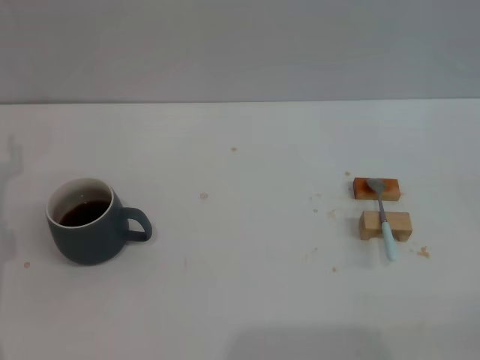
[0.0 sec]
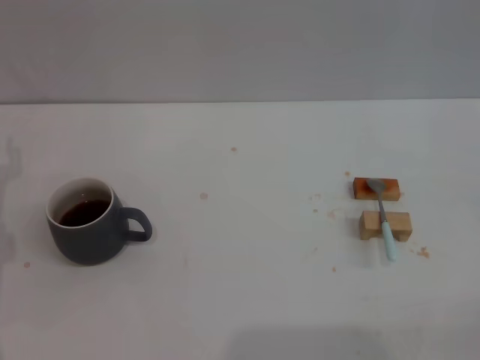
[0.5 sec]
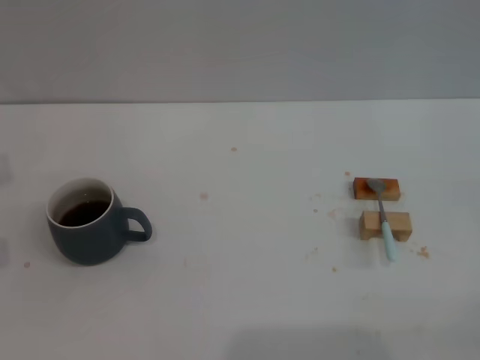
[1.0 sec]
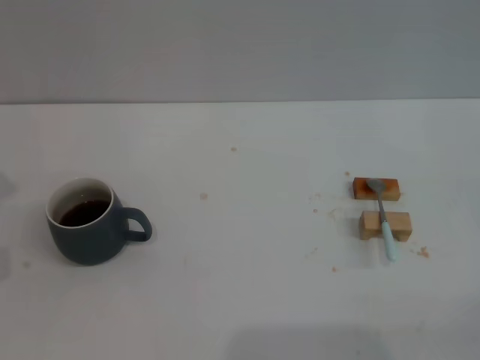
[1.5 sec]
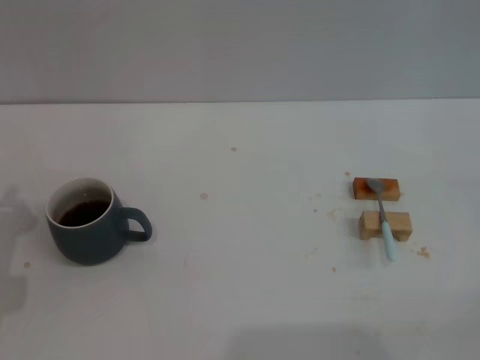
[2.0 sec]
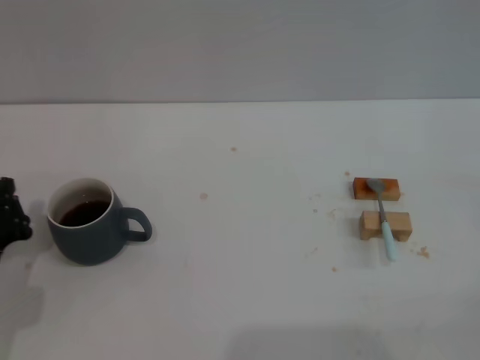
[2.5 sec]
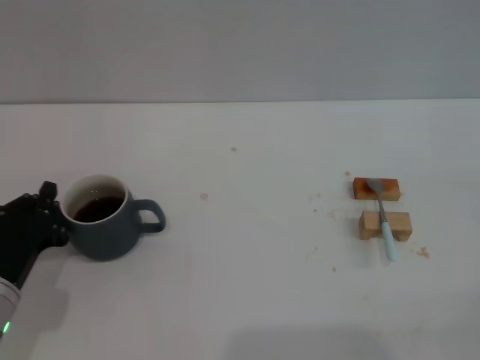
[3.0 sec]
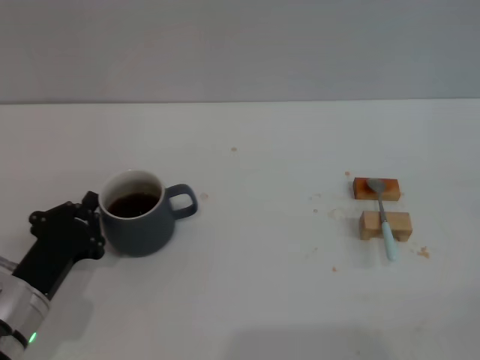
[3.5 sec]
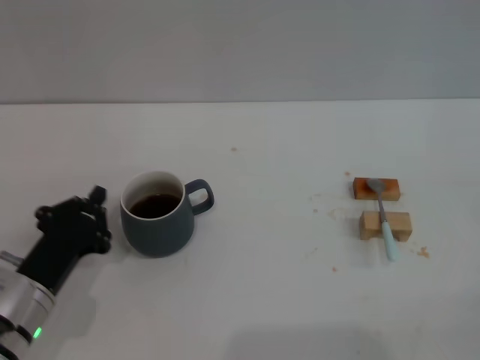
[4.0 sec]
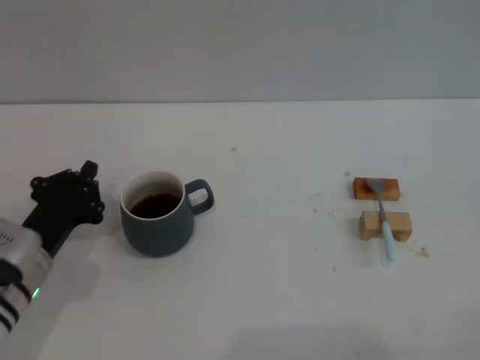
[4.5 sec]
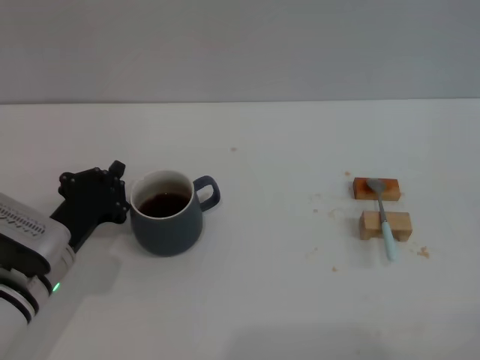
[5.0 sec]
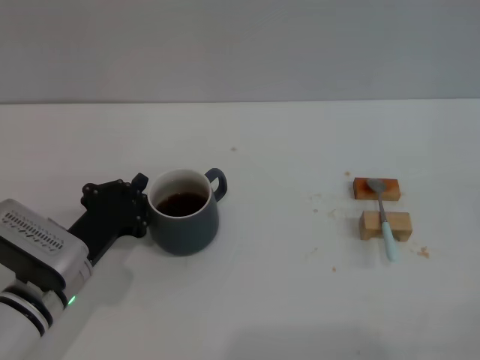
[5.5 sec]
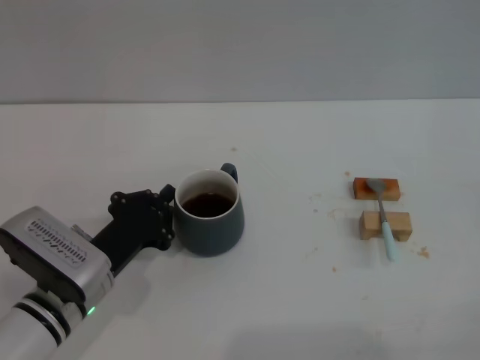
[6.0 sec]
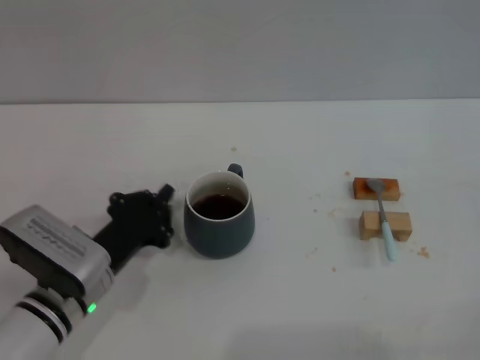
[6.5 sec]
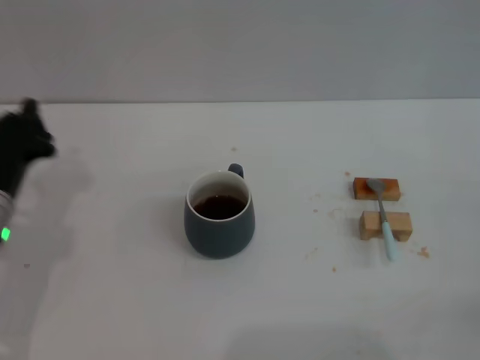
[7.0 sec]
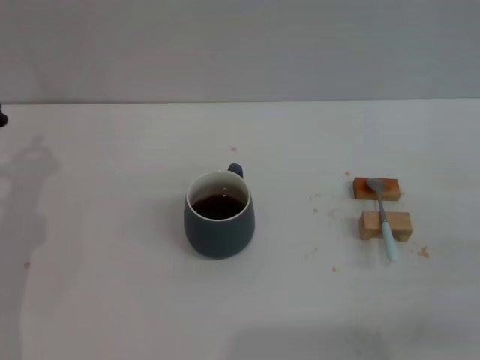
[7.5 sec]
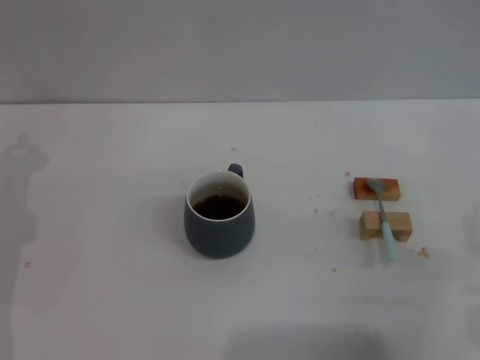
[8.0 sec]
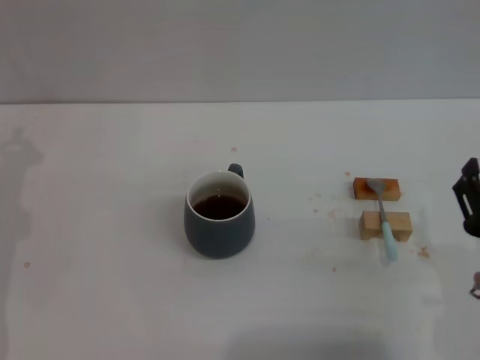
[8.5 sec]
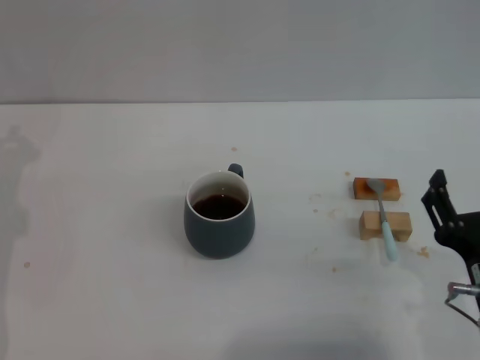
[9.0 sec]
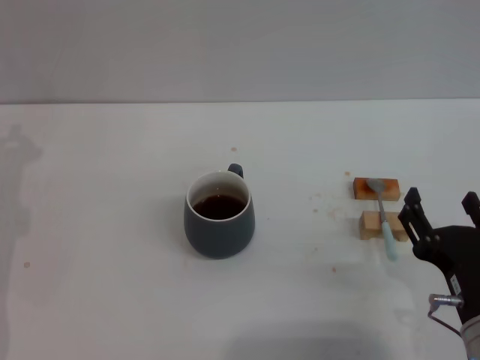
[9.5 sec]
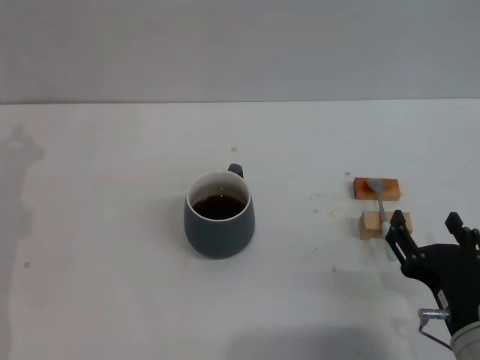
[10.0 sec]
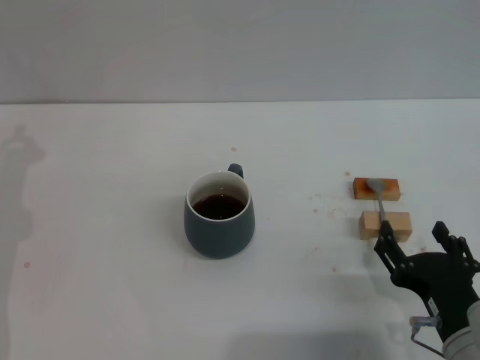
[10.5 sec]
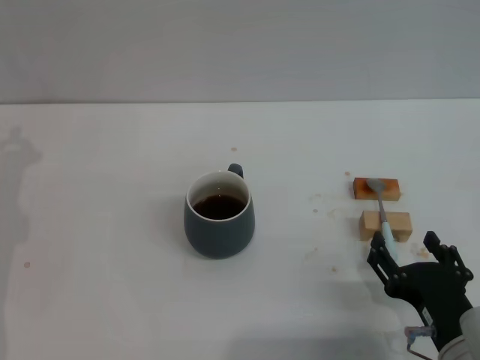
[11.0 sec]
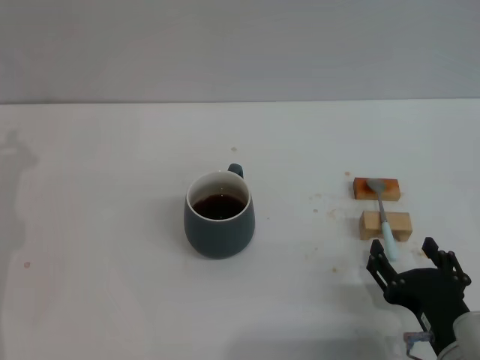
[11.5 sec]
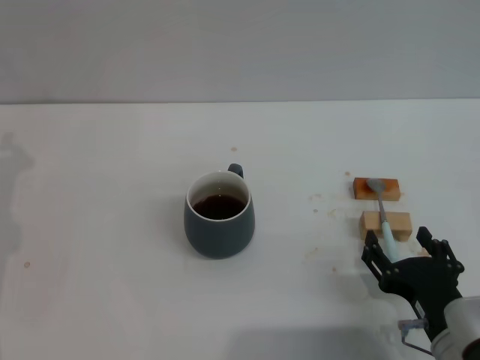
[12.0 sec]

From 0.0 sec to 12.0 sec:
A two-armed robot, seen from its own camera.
Task of the whole recording: Move the grey cup to the center, lift the blue spoon, stir it three times in the cup, and put the spoon into the cup.
Step, from 0.0 sec to 6.5 sec: Move the cup with coffee to the center of view with the left gripper.
From 0.0 sec to 2.0 sec: The left gripper goes approximately 10 cm downward and backward, and closes.
From 2.0 sec to 4.0 sec: The left gripper heads to the right, covering approximately 5 cm.
From 4.0 sec to 6.0 sec: The left gripper changes place by some 5 cm.
From 6.0 sec to 8.0 sec: The left gripper travels to the left, upward and forward by roughly 15 cm; the right gripper travels to the left by roughly 20 cm.
From 8.0 sec to 10.0 sec: The right gripper heads to the left, covering roughly 5 cm.
From 10.0 sec to 12.0 sec: The grippers make only small movements.

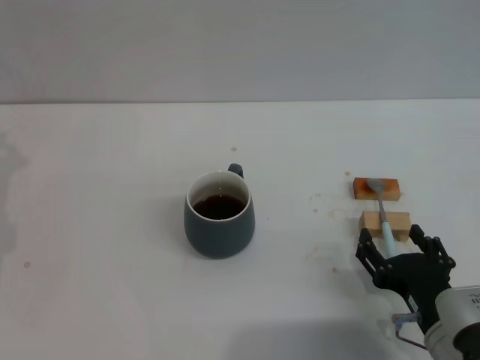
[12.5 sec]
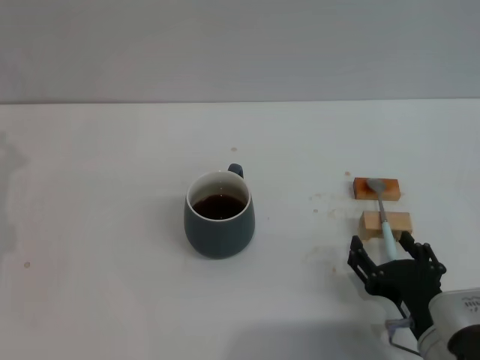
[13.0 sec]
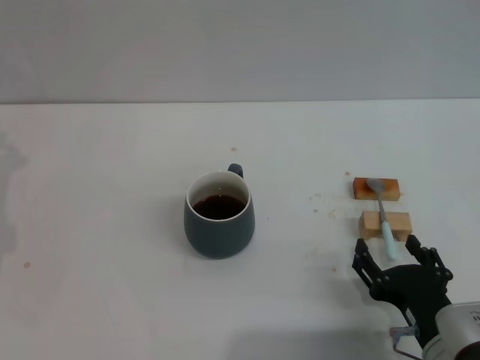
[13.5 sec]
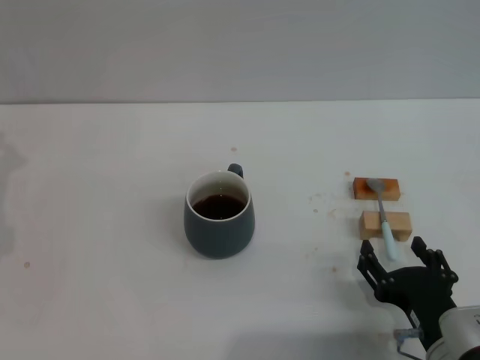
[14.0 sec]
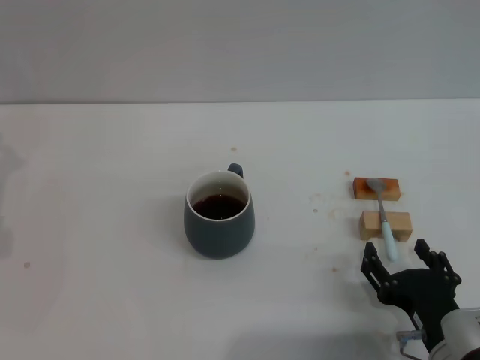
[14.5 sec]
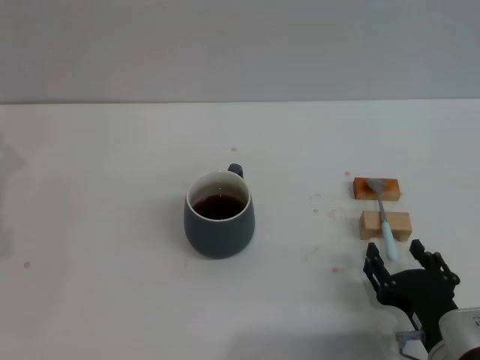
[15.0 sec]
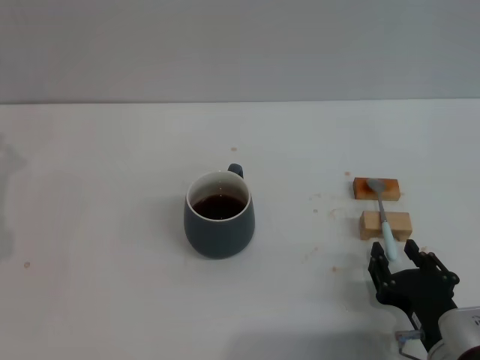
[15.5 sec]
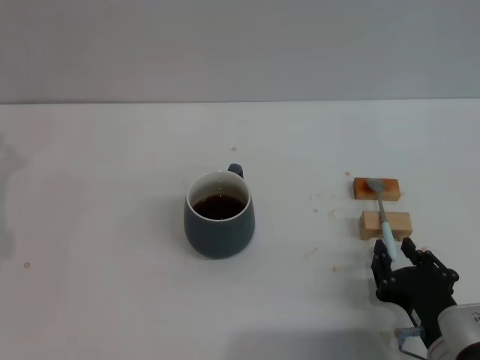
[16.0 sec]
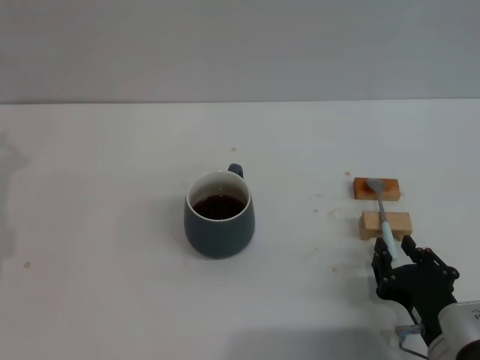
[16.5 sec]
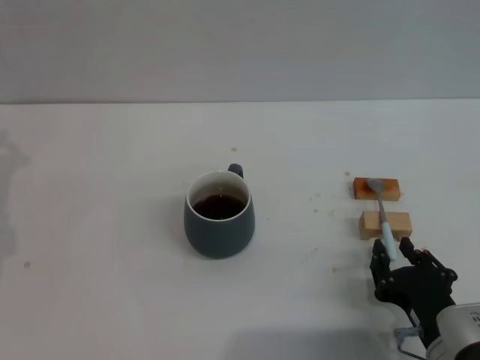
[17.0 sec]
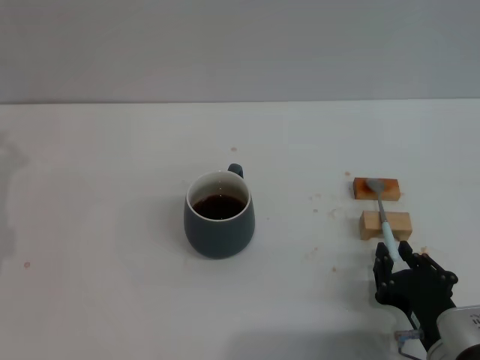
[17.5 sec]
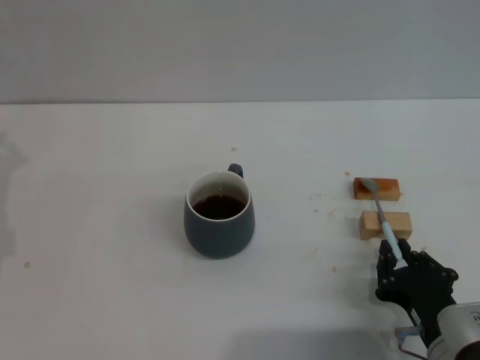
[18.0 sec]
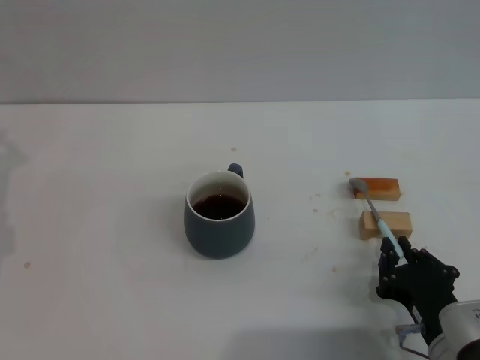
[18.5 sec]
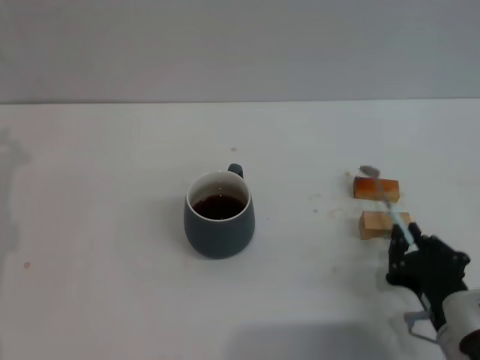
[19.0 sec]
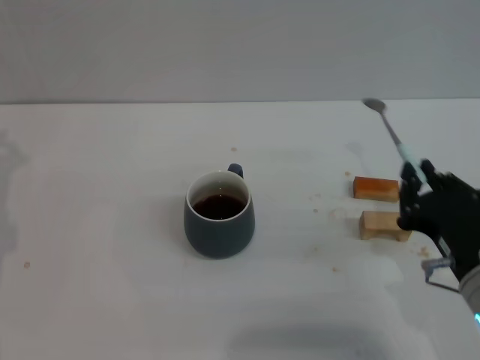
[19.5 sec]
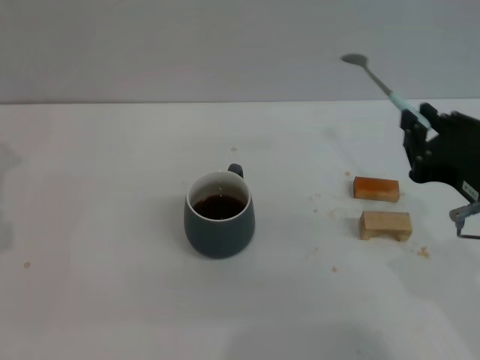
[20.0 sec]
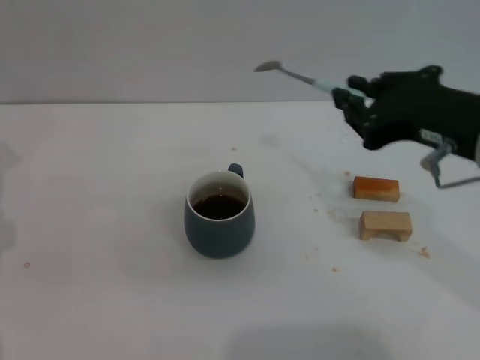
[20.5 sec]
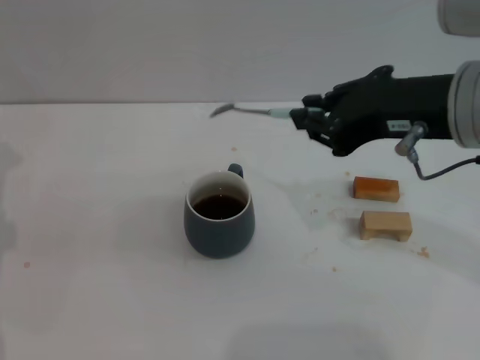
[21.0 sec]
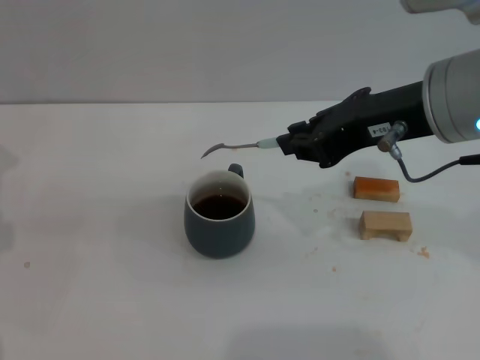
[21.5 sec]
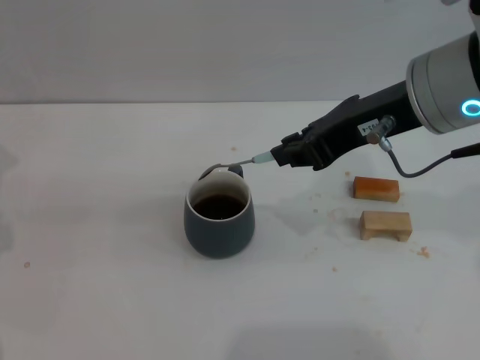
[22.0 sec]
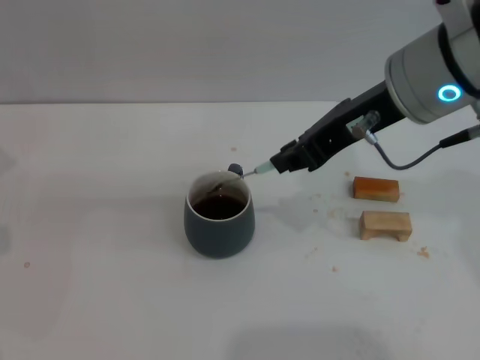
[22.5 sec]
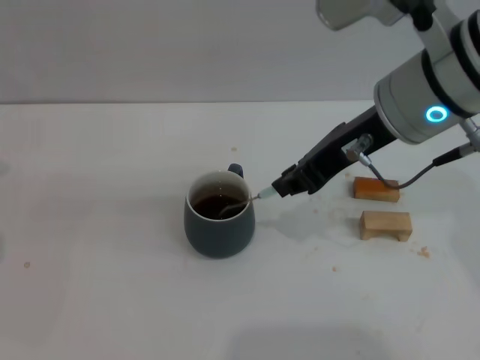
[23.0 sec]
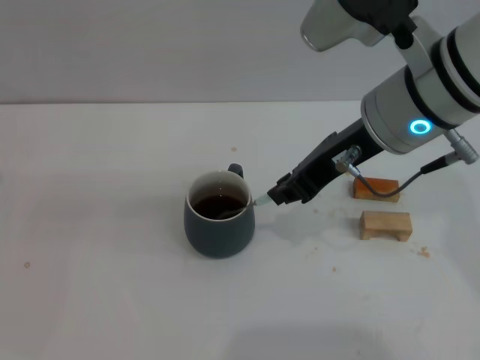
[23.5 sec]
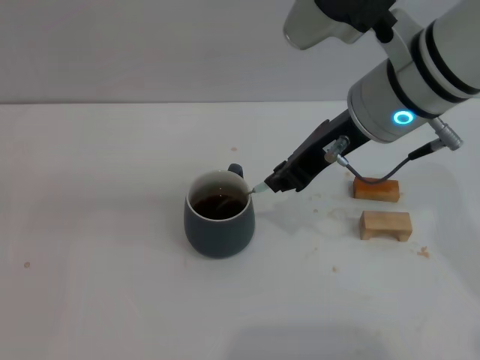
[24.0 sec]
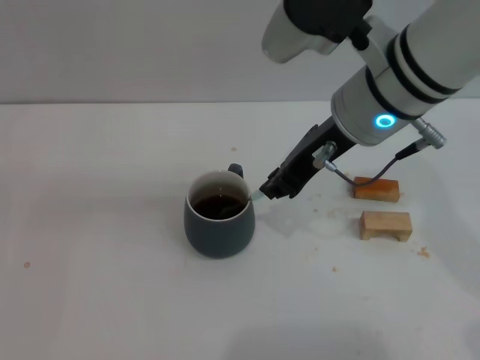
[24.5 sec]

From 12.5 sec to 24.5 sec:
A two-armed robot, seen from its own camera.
Task of the whole recording: Move the grey cup to the center, lift the blue spoon, stir it three times in the cup, and put the spoon into the cup.
Step, from 12.5 sec to 19.0 sec: Pick up the spoon with the right gripper.
From 12.5 sec to 14.5 sec: The grippers move only a little.
From 14.5 sec to 16.5 sec: The right gripper closes its fingers.
From 16.5 sec to 18.5 sec: Both grippers stay put.
From 18.5 sec to 20.5 sec: The right gripper moves upward, roughly 25 cm.
From 20.5 sec to 22.5 sec: The right gripper travels forward and to the left by approximately 10 cm.
From 22.5 sec to 24.5 sec: The right gripper changes place by approximately 5 cm.

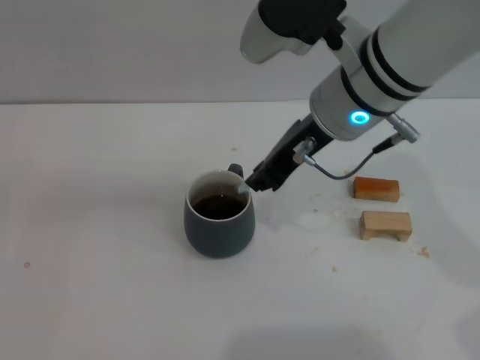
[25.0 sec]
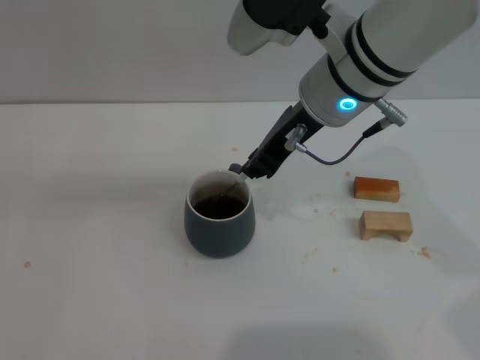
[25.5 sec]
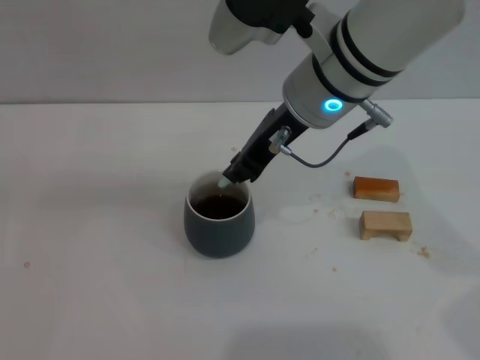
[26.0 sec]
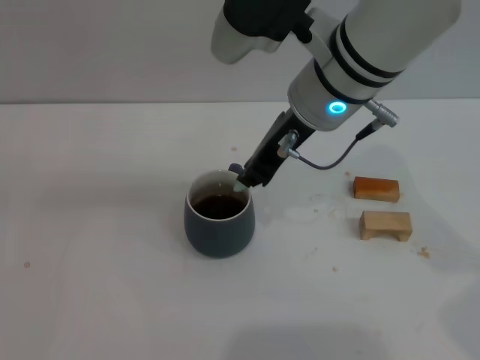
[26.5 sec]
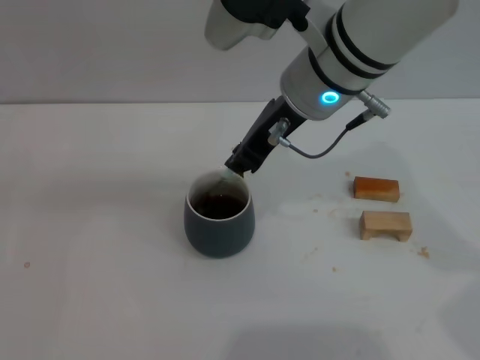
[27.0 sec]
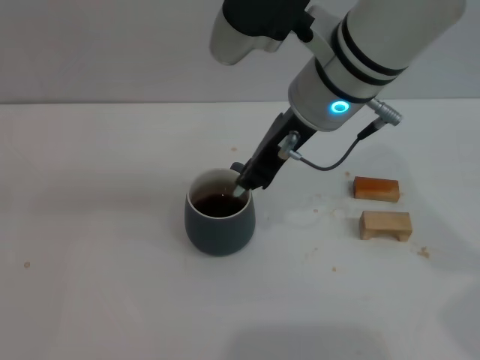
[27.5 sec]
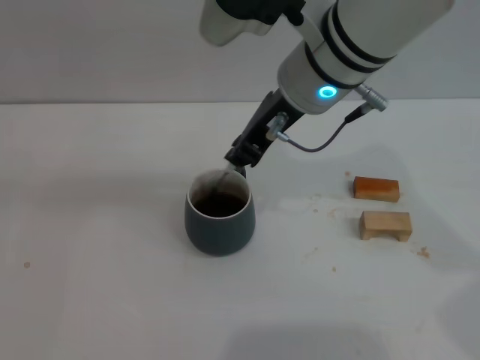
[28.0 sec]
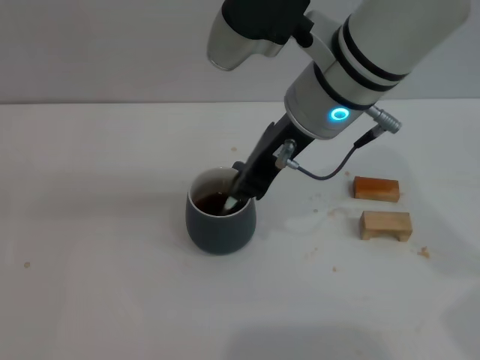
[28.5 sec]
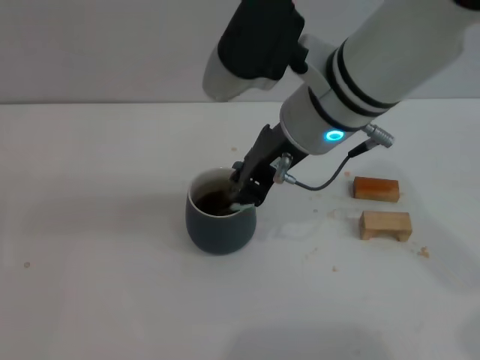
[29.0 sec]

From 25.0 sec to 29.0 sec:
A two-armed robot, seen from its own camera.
Task of the whole recording: Move the grey cup to the center, lift the blue spoon, stir it three times in the cup, and put the spoon into the cup.
From 25.0 sec to 29.0 sec: The grippers stay close to where they were, moving slightly.
